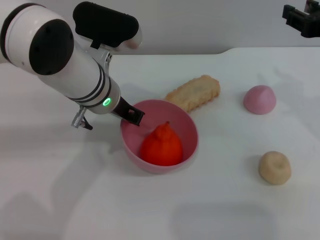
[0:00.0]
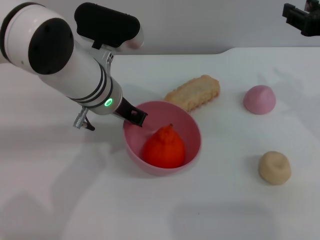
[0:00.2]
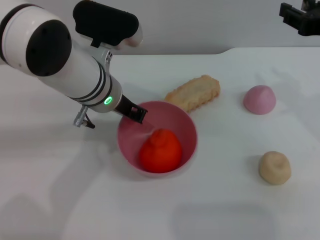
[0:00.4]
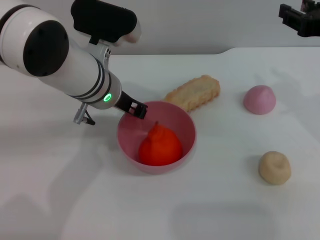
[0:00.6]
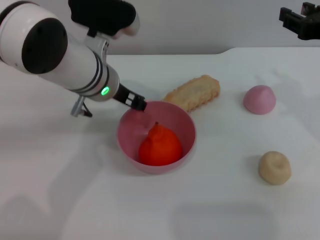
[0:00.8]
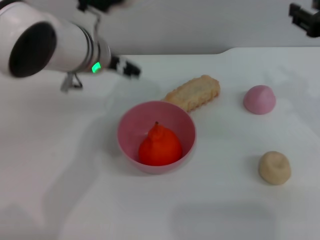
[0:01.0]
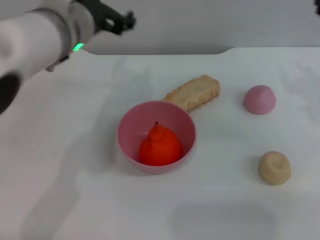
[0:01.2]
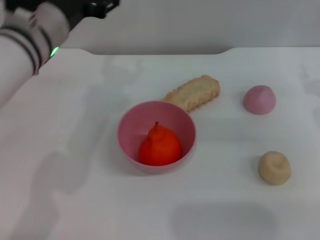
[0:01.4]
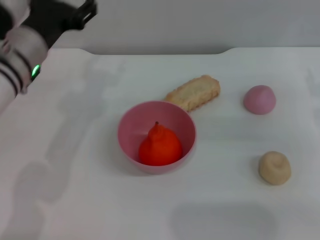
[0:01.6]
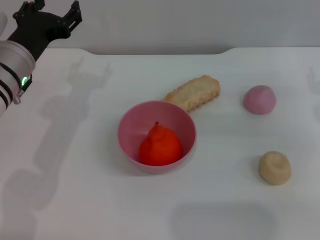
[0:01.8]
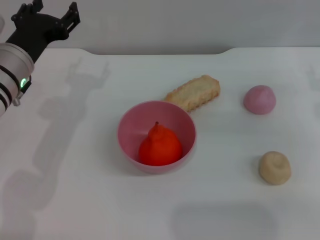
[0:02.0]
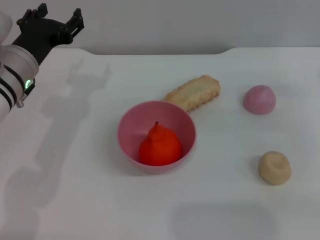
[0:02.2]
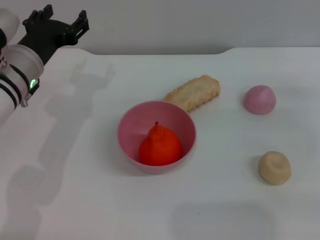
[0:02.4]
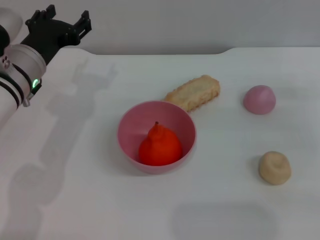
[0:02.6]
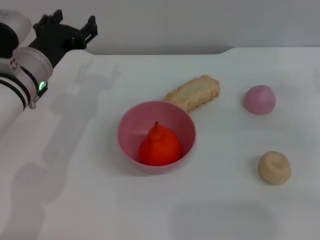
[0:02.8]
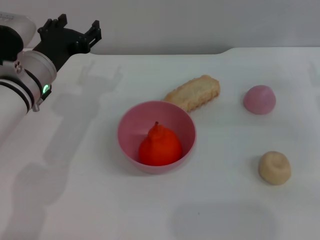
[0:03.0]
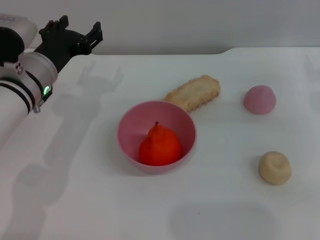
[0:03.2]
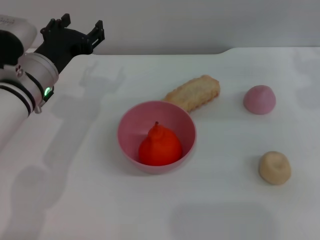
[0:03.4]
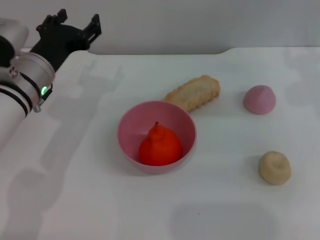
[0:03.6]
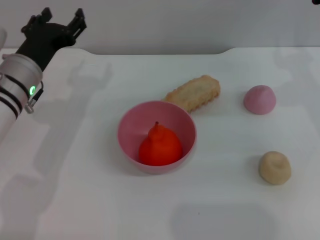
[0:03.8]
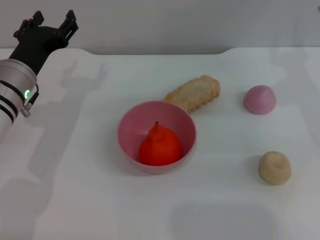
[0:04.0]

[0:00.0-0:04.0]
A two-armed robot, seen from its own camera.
Task of the whole recording: put the orange into the pink bowl and pour it out repeatedly.
0:00.0 to 0:01.4: The right gripper ends up about 5 cm from where it was; the left gripper goes approximately 5 cm to the left, and opens its fingers.
0:01.4 to 0:02.6: The left gripper heads downward, covering roughly 5 cm.
0:02.6 to 0:04.0: The right gripper shifts approximately 15 cm to the left and upward.
